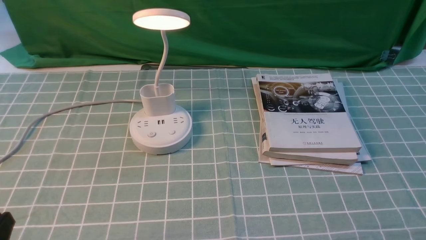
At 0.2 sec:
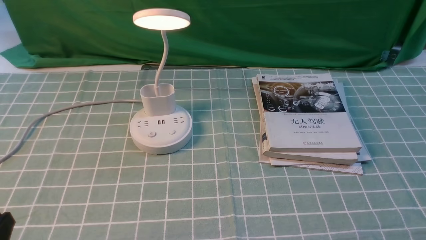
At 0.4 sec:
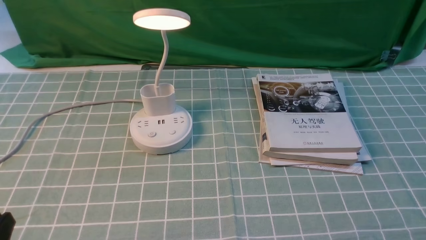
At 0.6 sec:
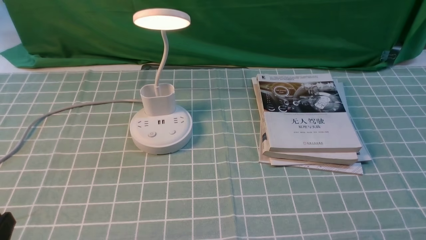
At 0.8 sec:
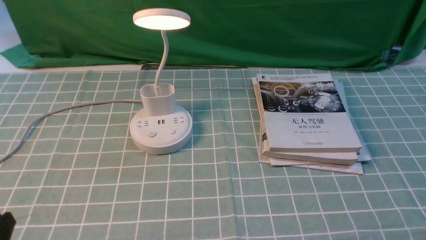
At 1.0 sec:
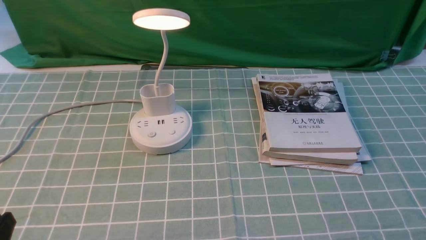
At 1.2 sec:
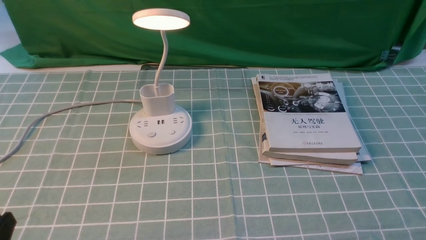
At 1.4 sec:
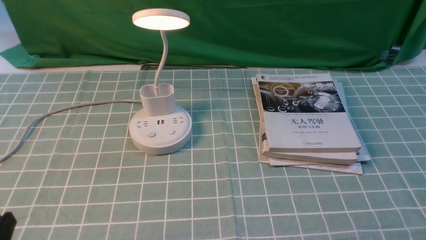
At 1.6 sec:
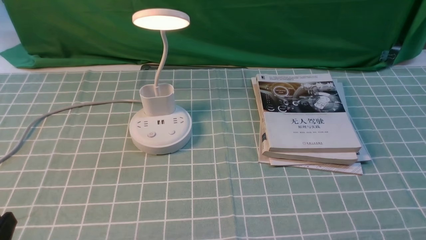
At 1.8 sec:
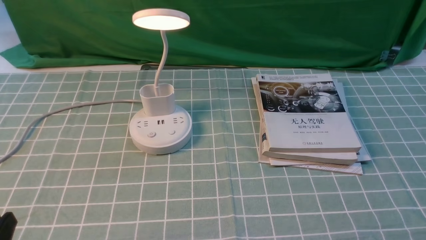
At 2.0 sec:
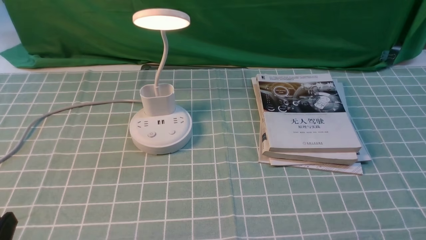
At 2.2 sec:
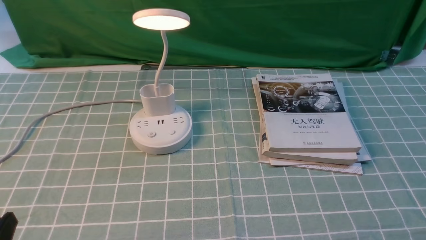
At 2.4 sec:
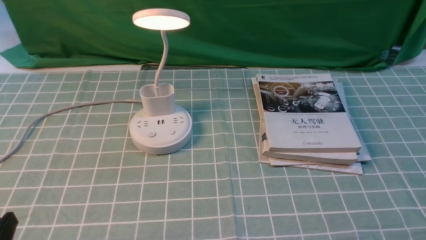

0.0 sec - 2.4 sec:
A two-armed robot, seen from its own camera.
0.0 sec - 2.4 sec: The two grippers keep their place.
